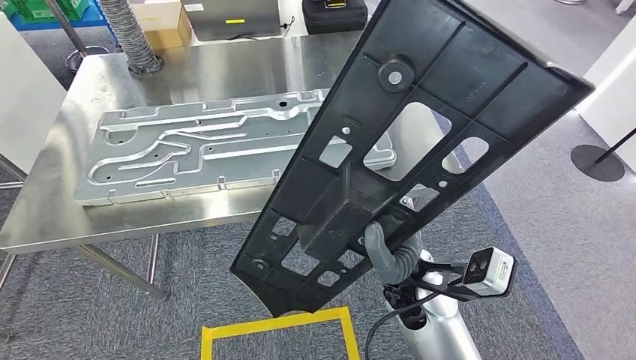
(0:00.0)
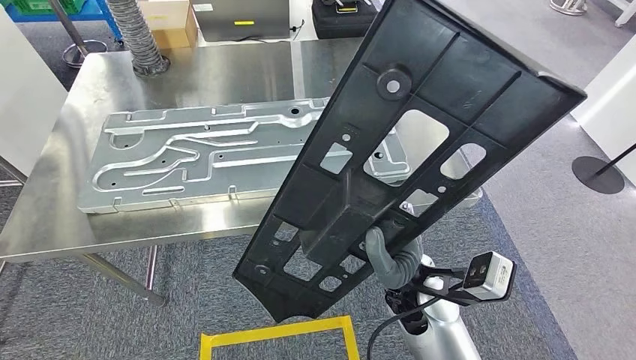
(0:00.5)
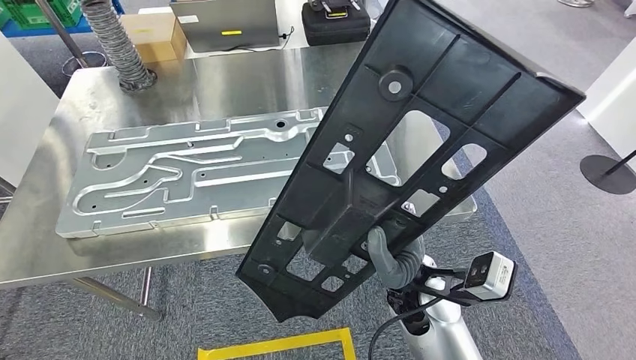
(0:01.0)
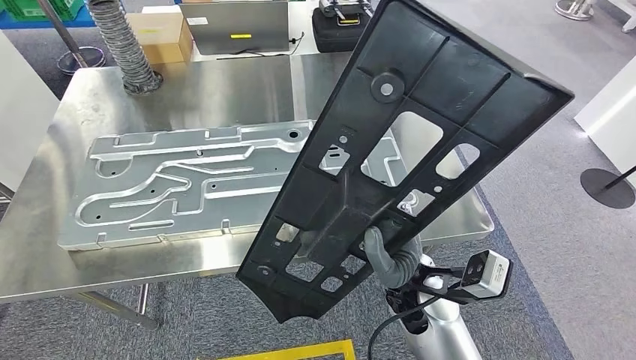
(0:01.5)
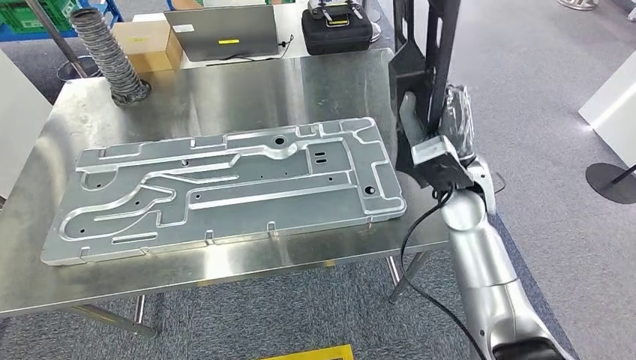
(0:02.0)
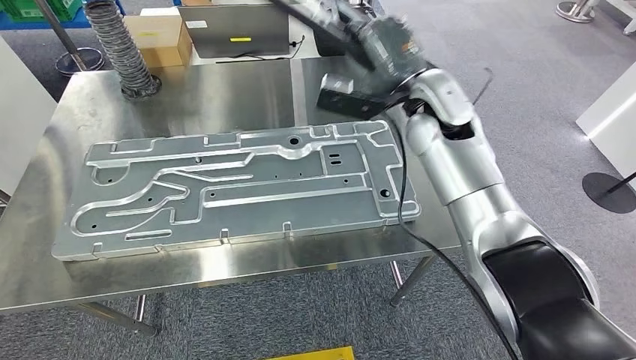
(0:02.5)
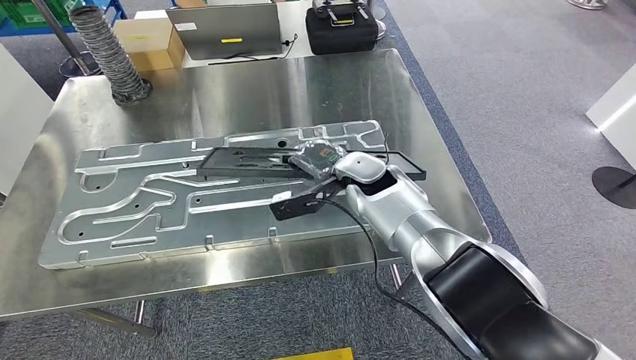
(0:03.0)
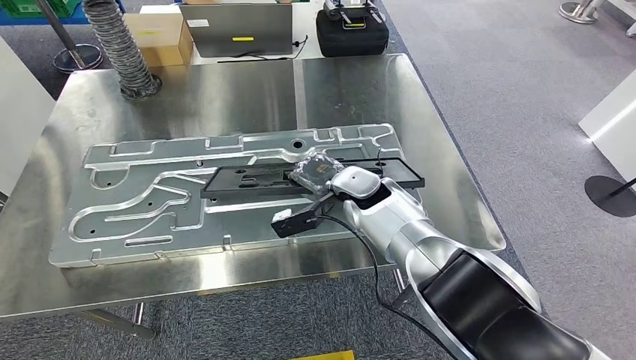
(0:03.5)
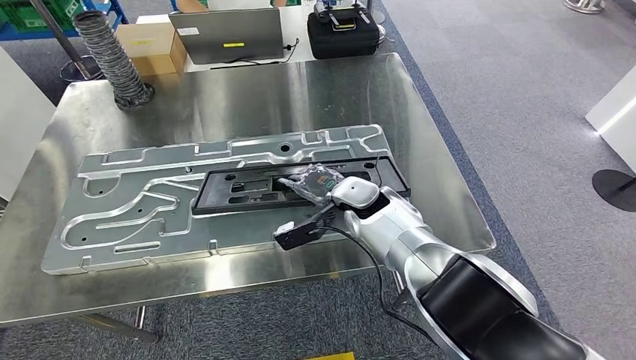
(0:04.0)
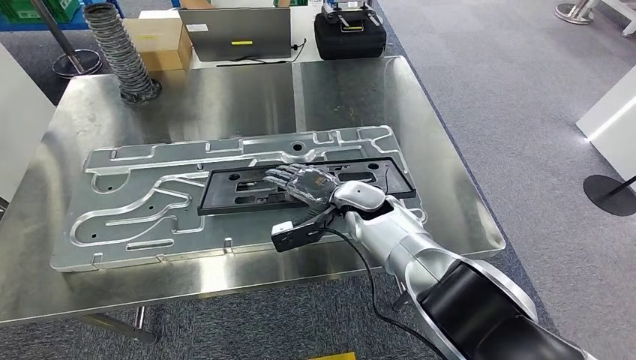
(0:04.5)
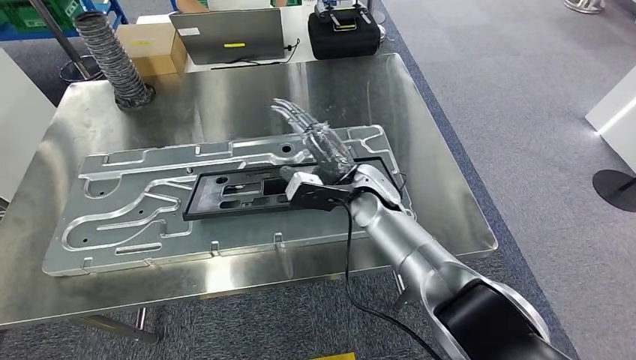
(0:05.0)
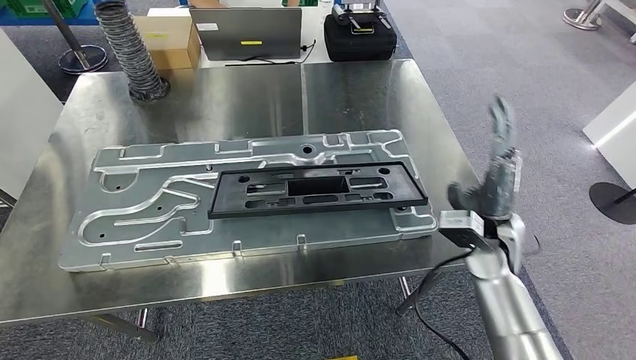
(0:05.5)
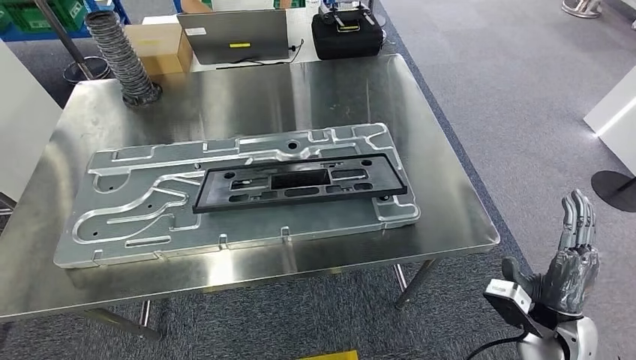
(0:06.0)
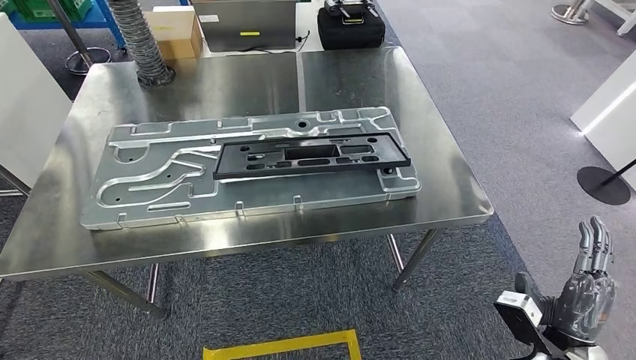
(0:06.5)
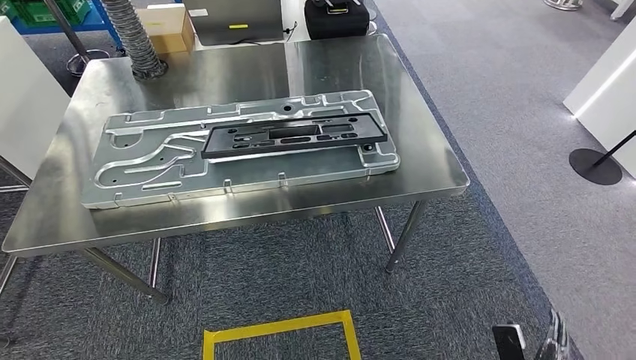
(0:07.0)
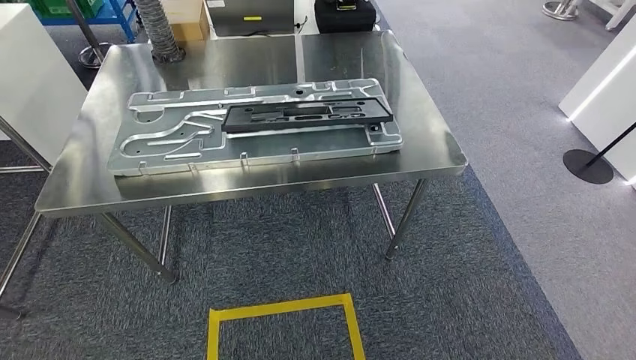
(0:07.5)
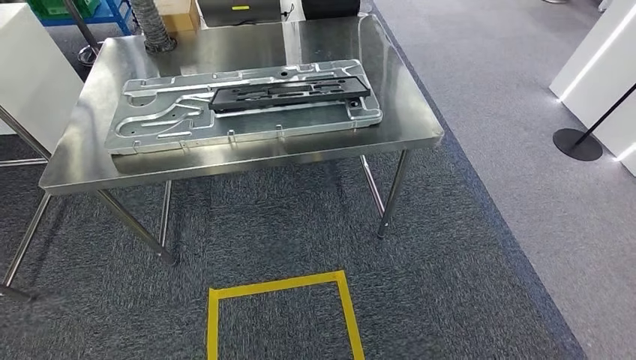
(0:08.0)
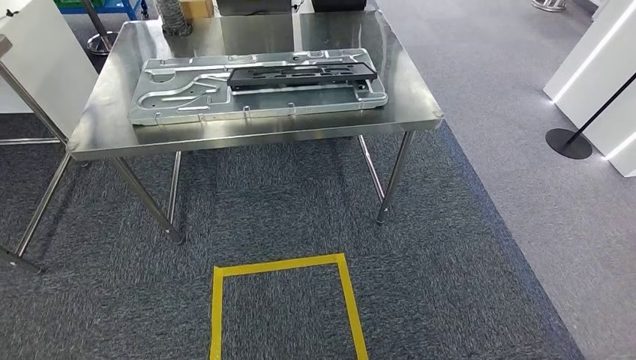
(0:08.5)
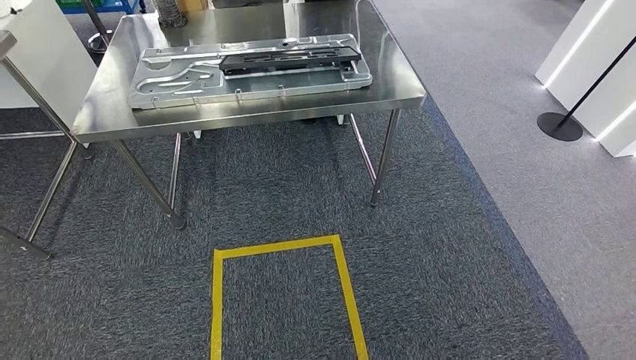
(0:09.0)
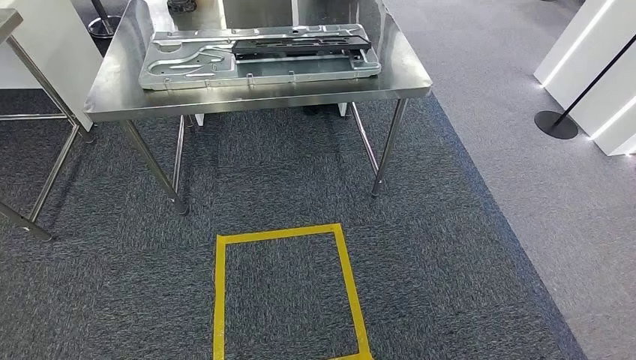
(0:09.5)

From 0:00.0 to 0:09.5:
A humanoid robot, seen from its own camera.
Step, from 0:02.0 to 0:04.0: Insert the large material into the corresponding slot on the workbench.
Step, from 0:06.0 to 0:09.5: Return to the initial position at the shelf.

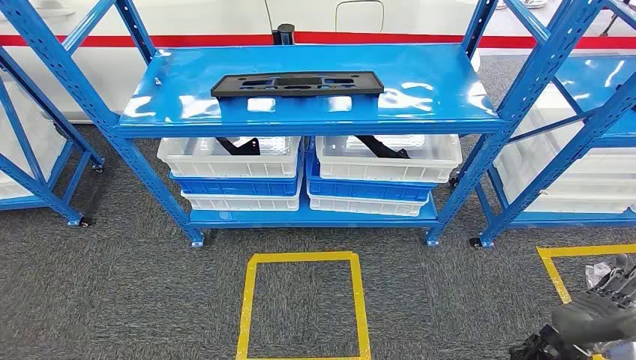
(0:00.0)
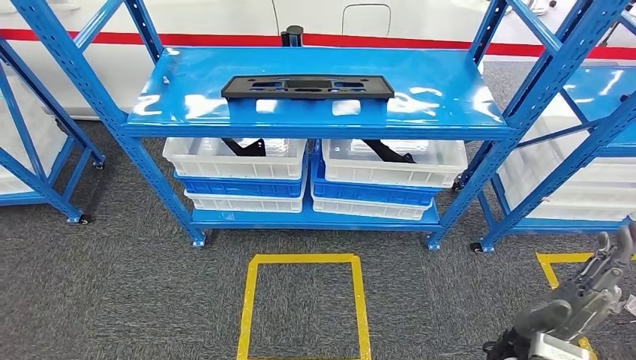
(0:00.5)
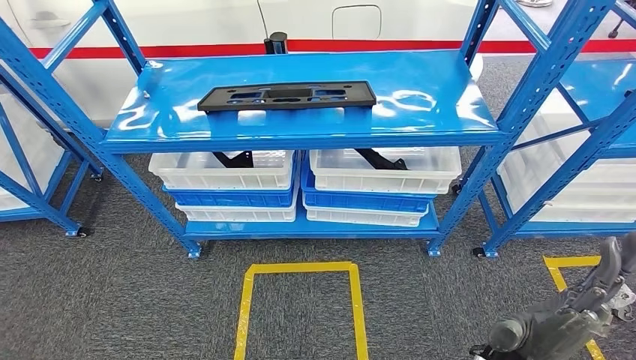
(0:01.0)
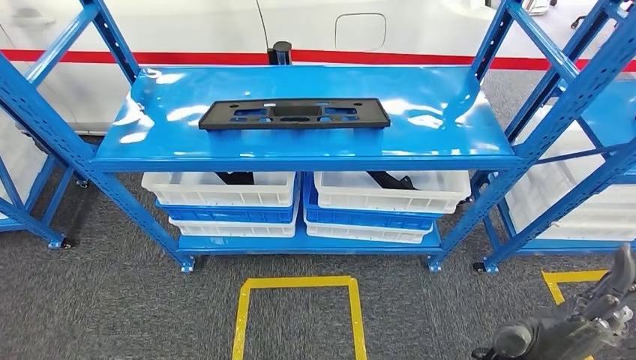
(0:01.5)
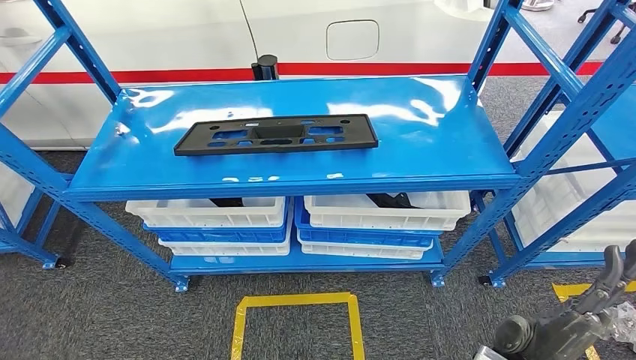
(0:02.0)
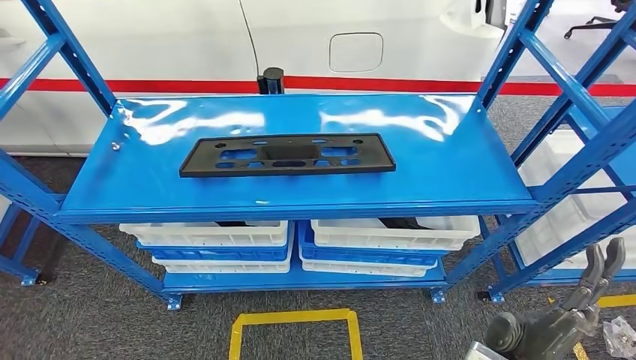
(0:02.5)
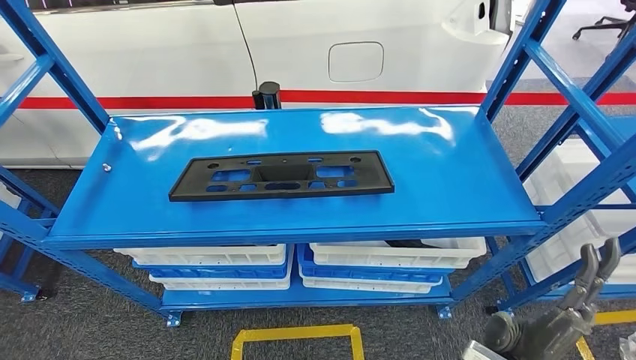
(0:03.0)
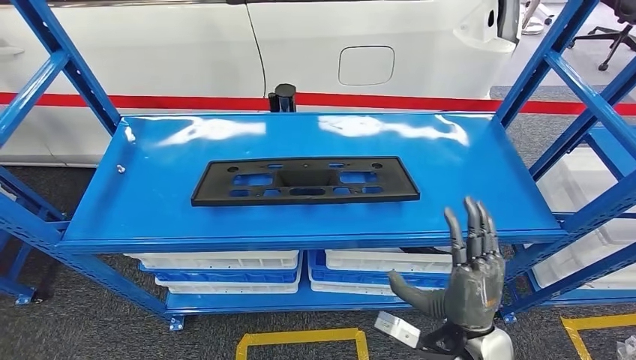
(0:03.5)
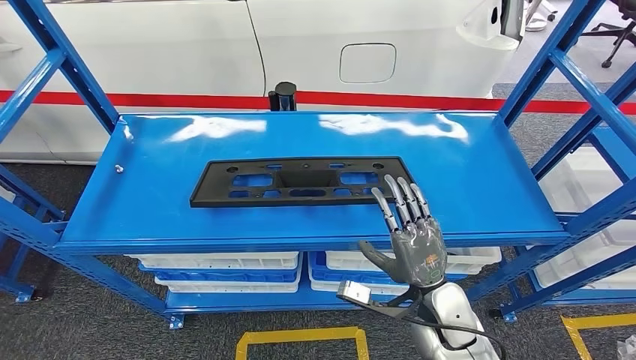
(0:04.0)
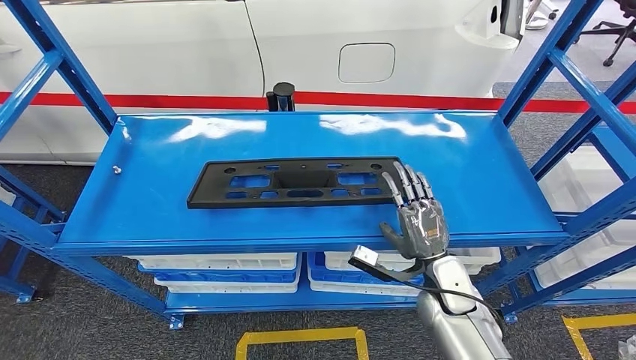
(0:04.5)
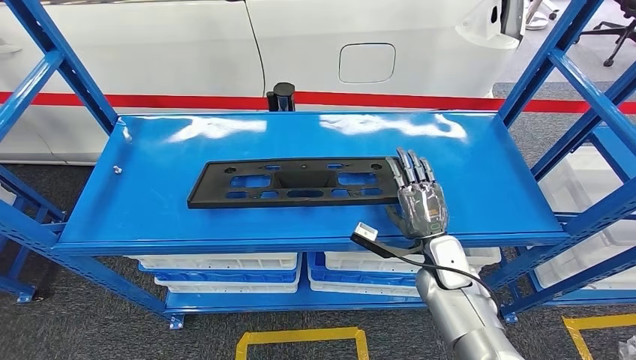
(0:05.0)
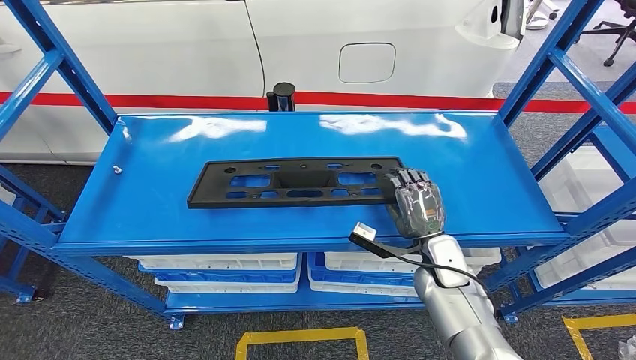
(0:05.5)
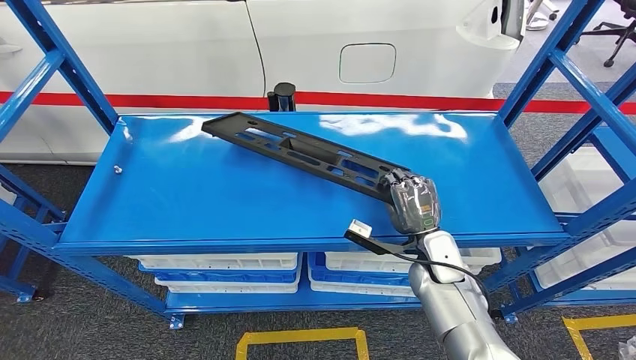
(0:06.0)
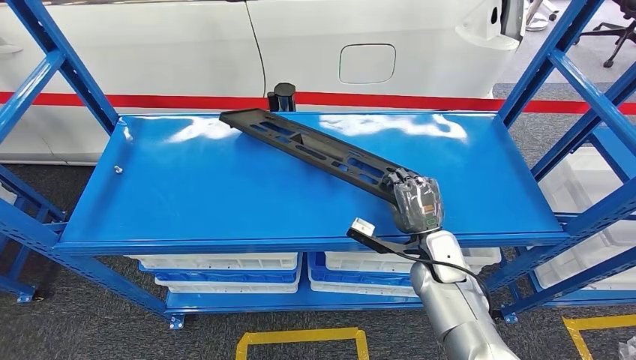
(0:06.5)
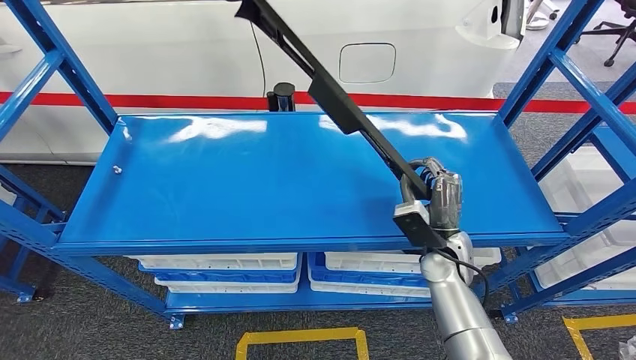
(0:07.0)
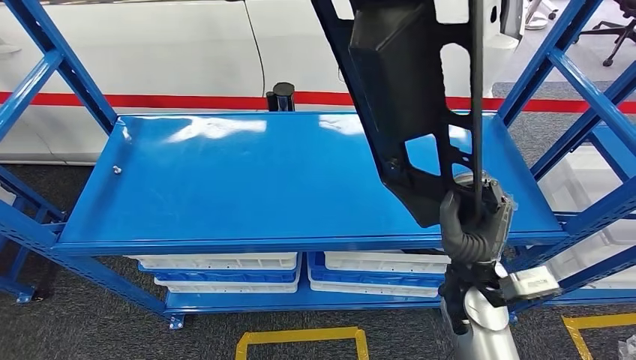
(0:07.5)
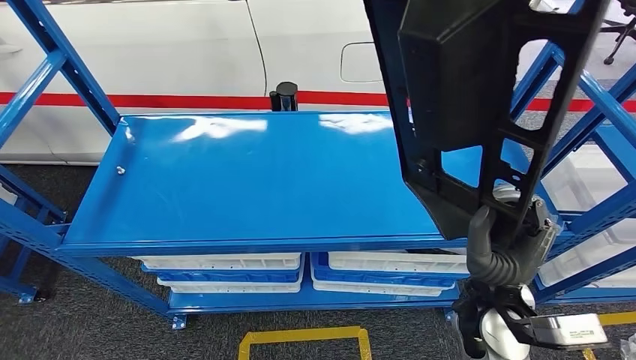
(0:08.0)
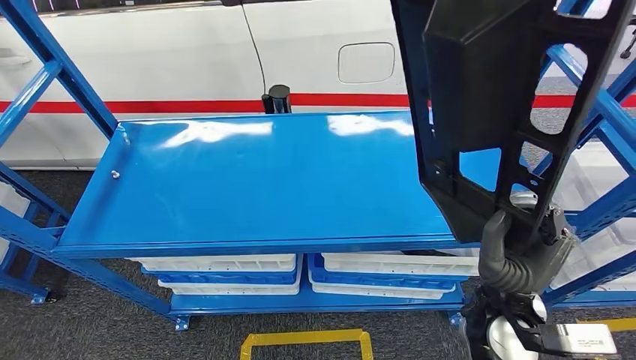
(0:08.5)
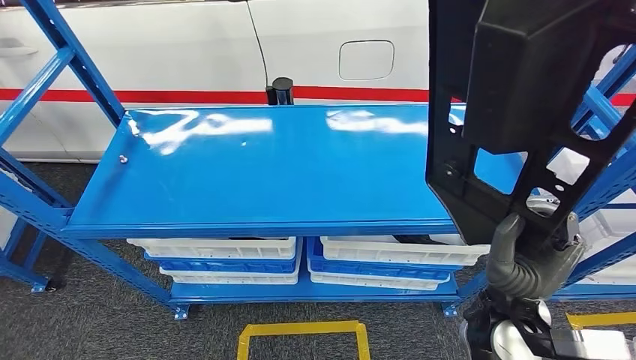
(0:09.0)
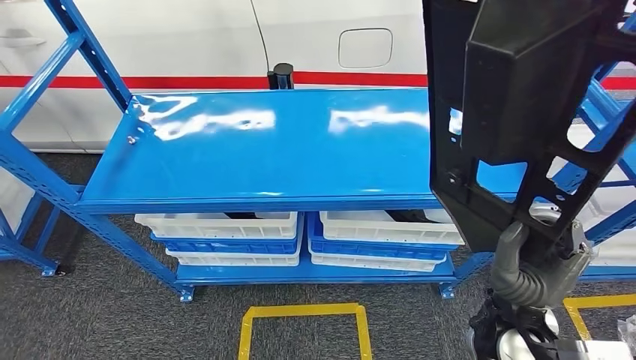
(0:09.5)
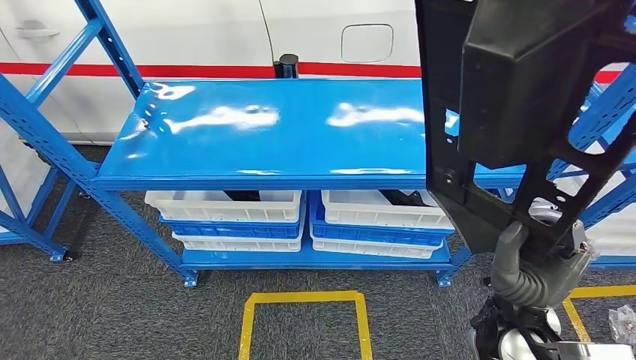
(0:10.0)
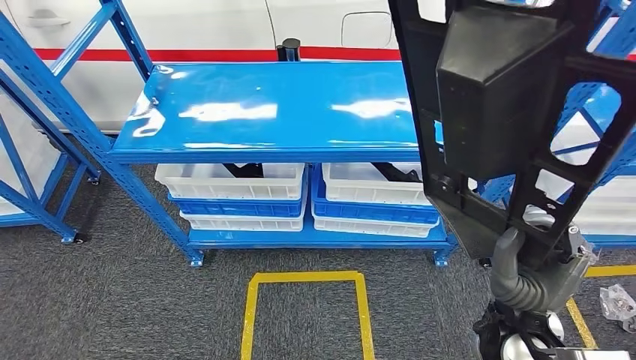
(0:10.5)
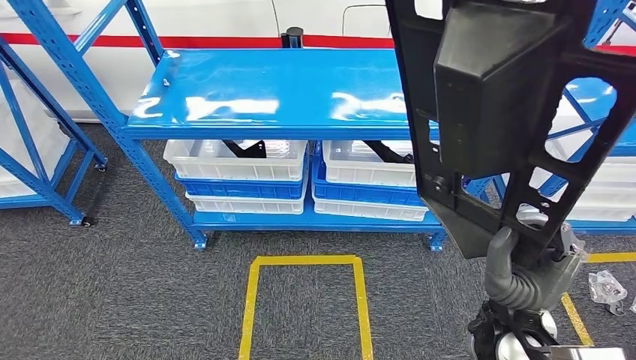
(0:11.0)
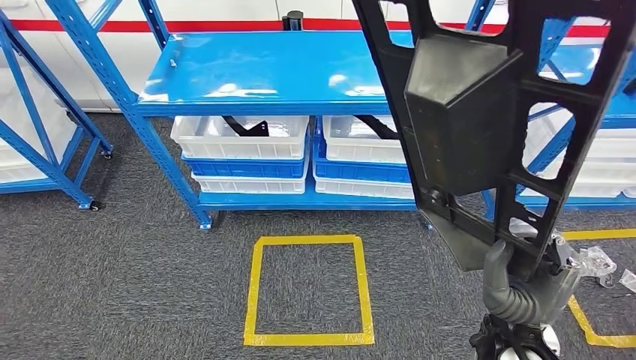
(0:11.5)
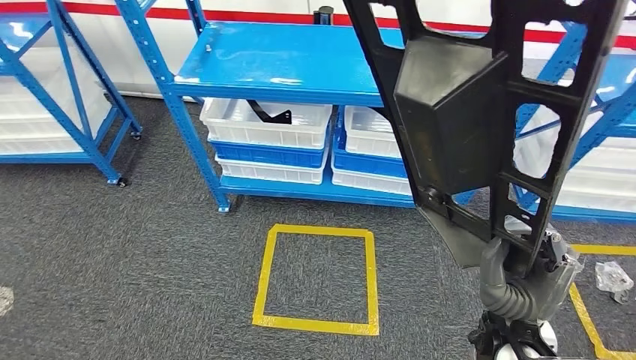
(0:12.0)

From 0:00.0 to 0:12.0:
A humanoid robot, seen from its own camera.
From 0:04.0 to 0:06.0: The right hand travels forward by about 10 cm.
